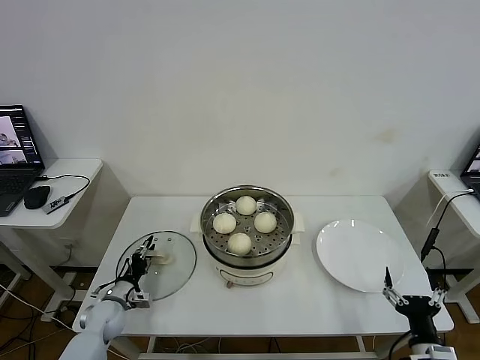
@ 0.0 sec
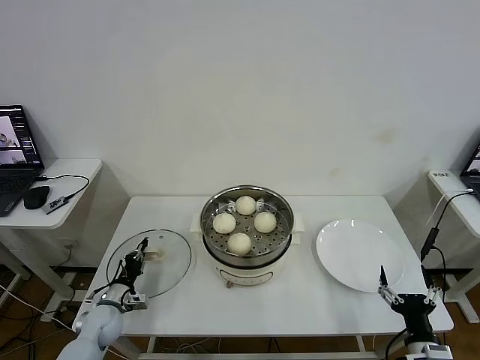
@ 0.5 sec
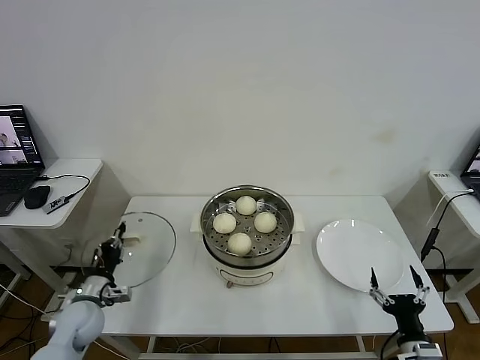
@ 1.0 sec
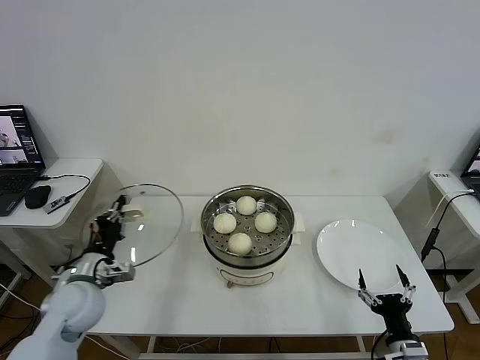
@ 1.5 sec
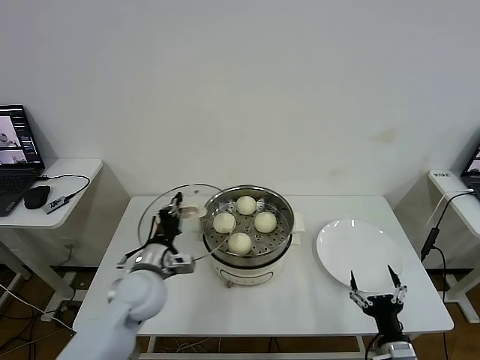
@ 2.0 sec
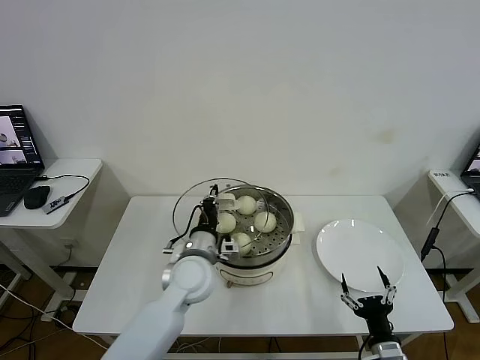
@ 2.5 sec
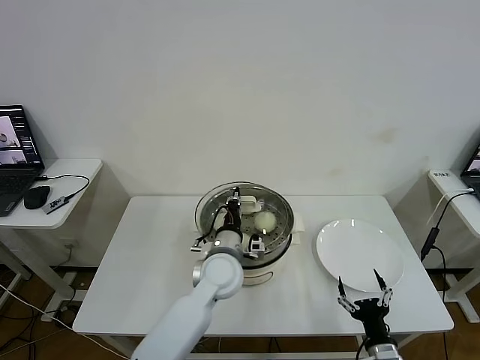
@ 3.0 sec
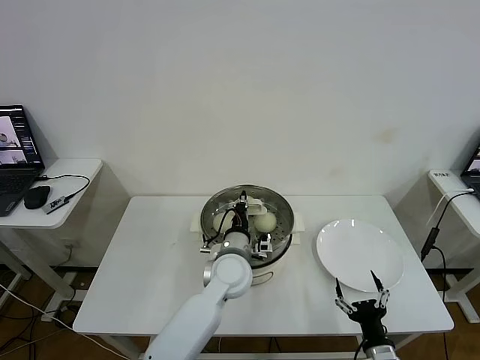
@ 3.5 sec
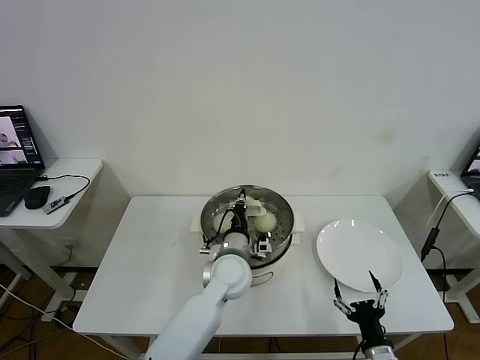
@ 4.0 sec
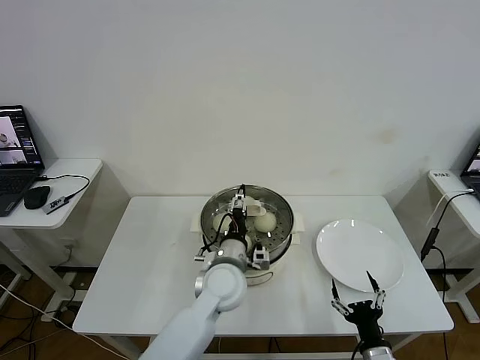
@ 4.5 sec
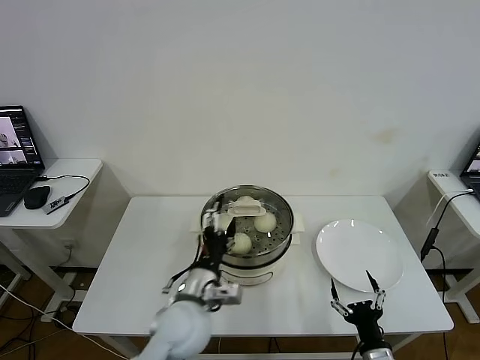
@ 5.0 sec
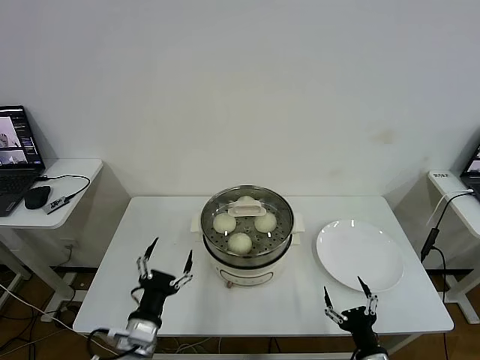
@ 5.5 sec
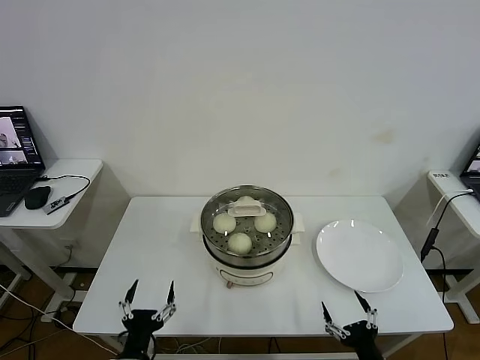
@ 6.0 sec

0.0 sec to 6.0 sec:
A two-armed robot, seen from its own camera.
Task of the whole recording: take steamed baozi put them in steamer then cover it.
Step, 0.5 sec to 4.5 sec: Place the pot lid on the steamer with left gripper.
0.0 sec to 2.0 sec: The left gripper heads upward and to the right, covering roughly 25 cm, and closes up.
2.0 sec to 4.0 sec: The left gripper moves to the right, some 20 cm.
4.0 sec to 6.0 sec: The left gripper is displaced backward and to the left by roughly 30 cm, and opens.
